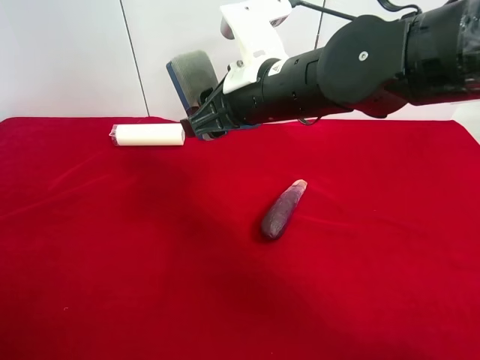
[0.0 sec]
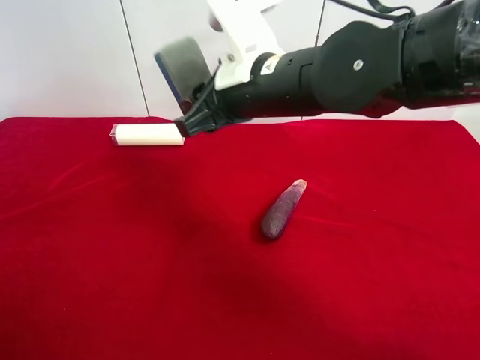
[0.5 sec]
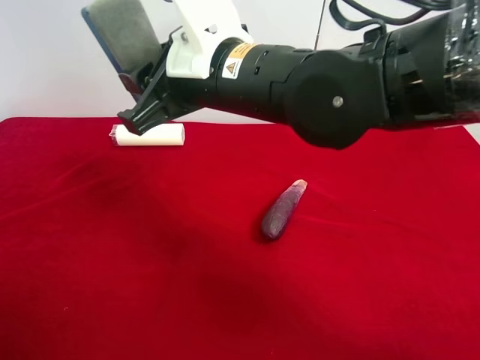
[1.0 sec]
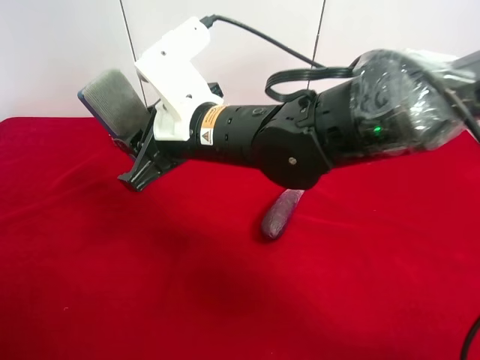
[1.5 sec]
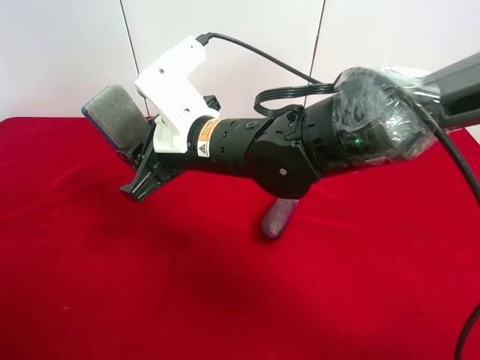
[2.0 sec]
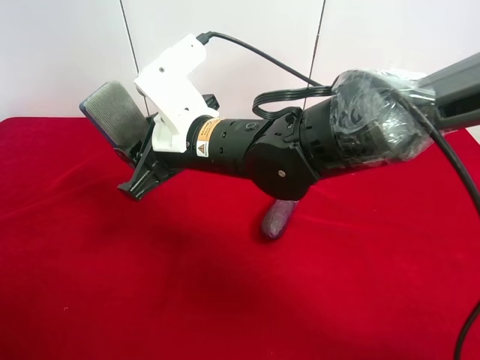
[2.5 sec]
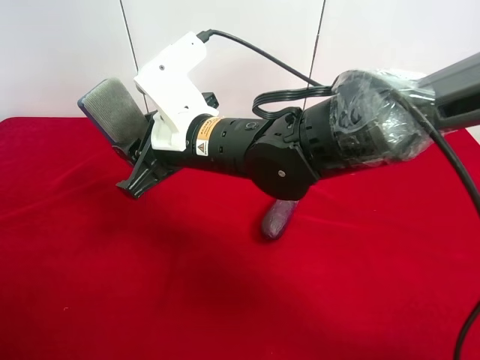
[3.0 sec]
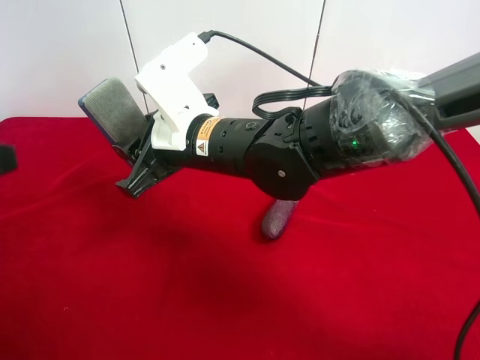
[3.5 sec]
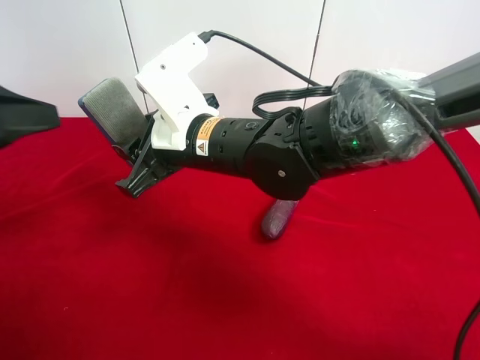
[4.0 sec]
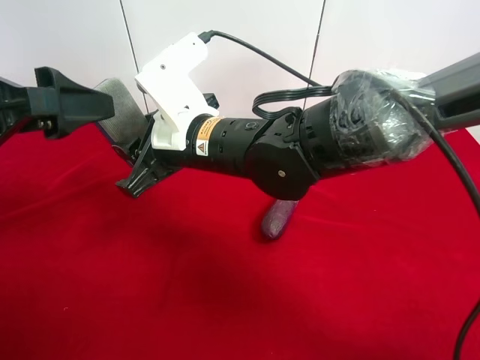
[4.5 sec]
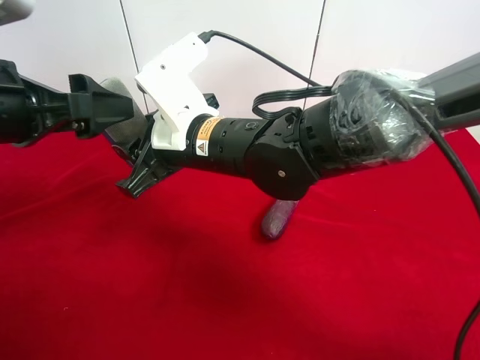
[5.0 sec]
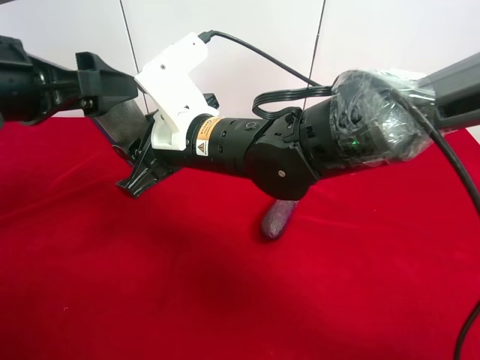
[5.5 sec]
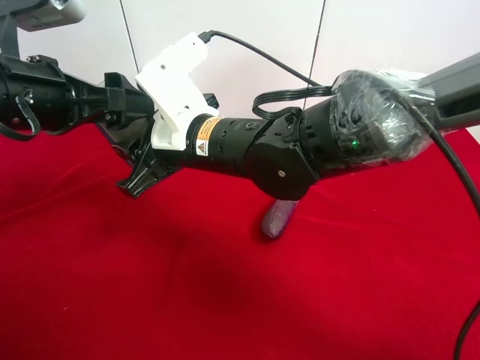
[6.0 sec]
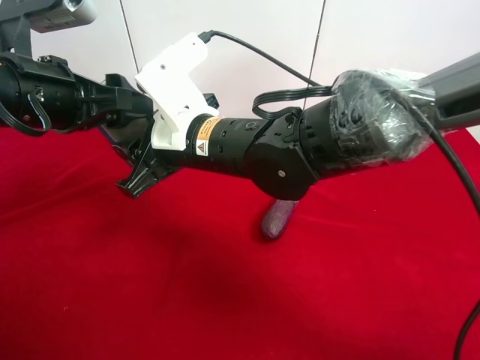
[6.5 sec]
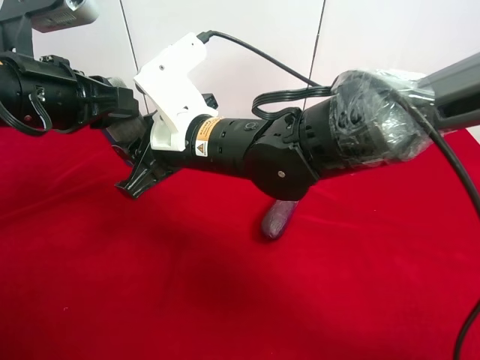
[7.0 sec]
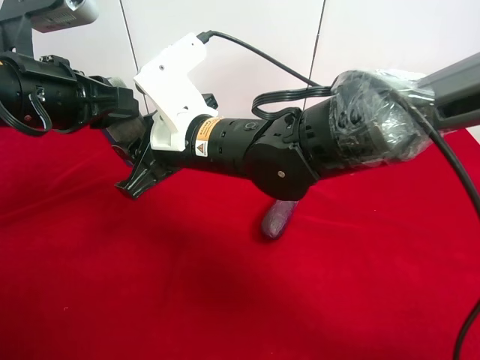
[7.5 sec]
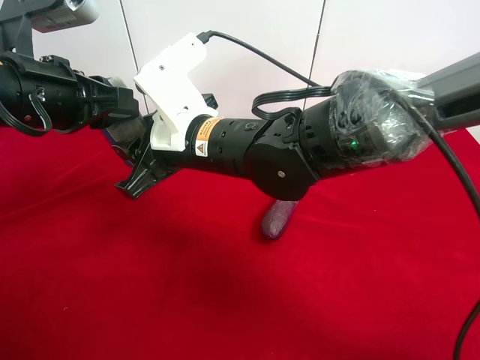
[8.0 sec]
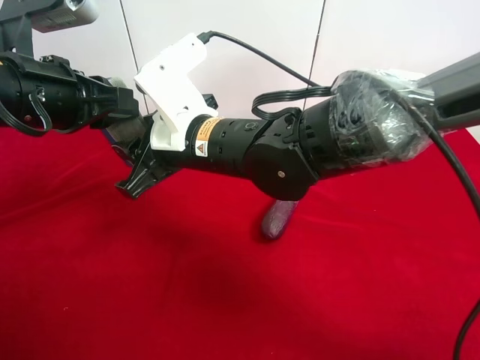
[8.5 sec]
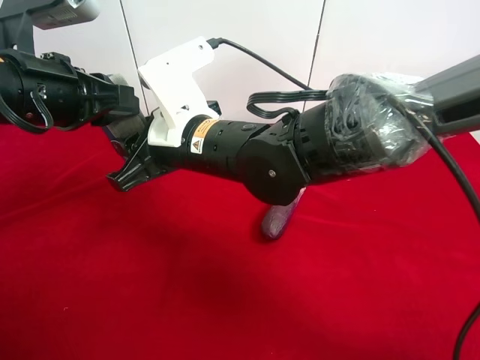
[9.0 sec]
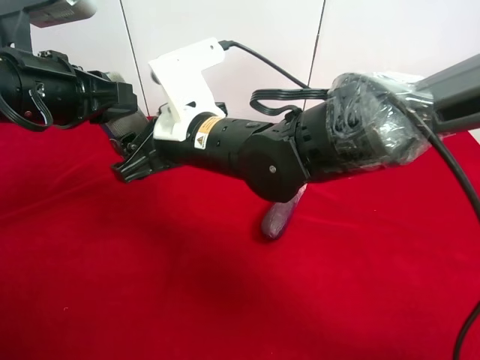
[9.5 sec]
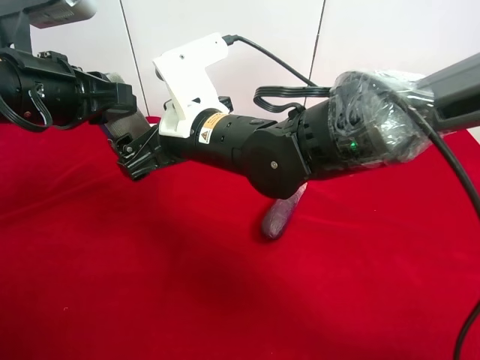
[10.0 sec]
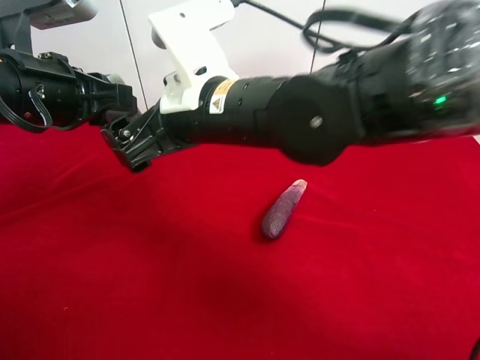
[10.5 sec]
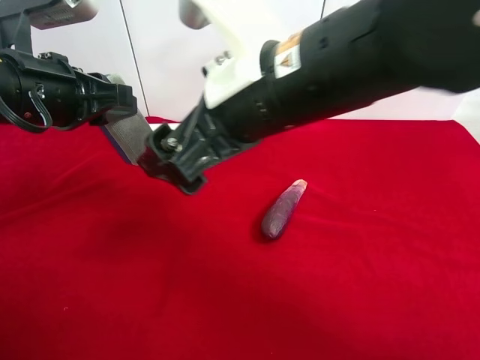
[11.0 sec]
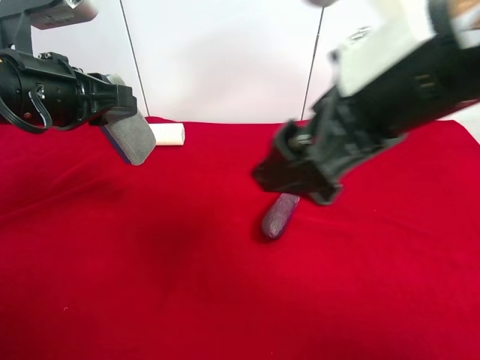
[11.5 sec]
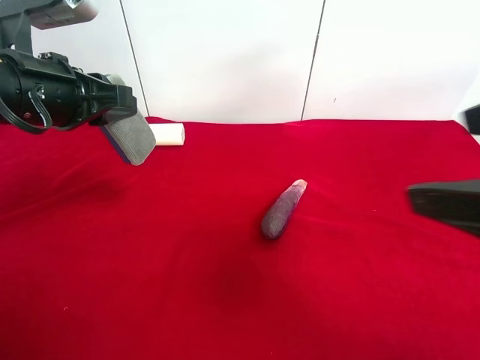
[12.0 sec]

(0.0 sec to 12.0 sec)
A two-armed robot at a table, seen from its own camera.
Task of the whole recording: use the right gripper to pick up the item and transfer it from the right gripper to the left gripper.
Step, 0.0 sec - 10.0 sec: Pass the blue blackboard erasure to the left gripper.
0.0 sec - 2.0 sec: The right gripper shifts roughly 5 cm to the left.
2.0 sec - 4.0 sec: The left gripper goes roughly 15 cm forward.
4.0 sec - 6.0 sec: The left gripper heads forward and to the right, covering roughly 10 cm.
6.0 sec - 8.0 sec: The left gripper closes.
8.0 sec - 10.0 sec: The right gripper opens.
10.0 sec - 12.0 sec: The right gripper shifts approximately 35 cm to the right, backward and upward.

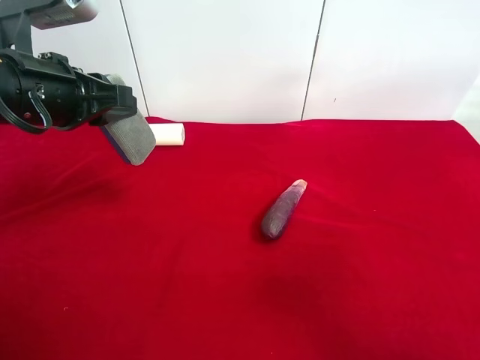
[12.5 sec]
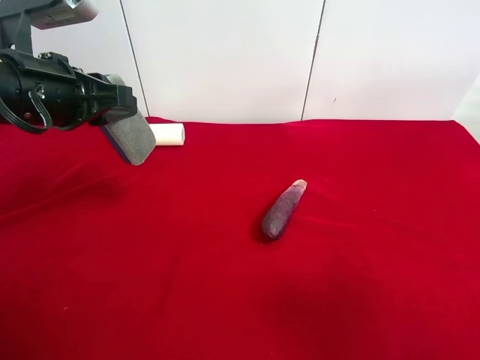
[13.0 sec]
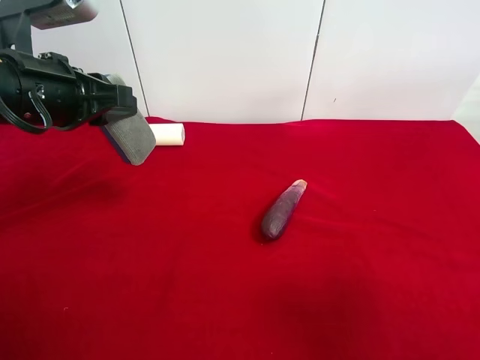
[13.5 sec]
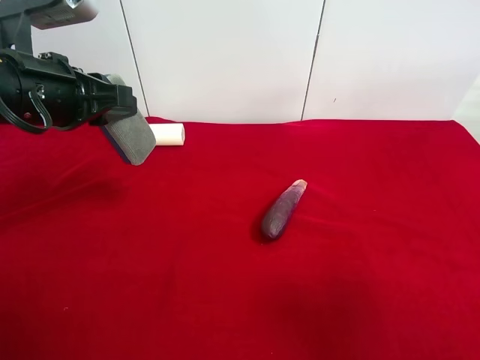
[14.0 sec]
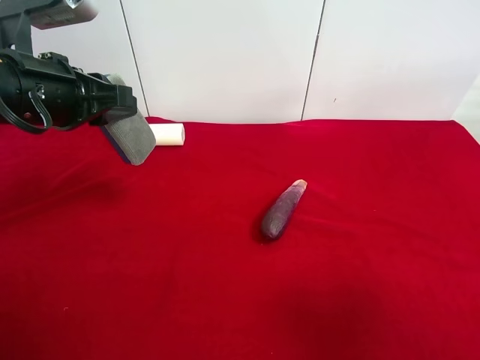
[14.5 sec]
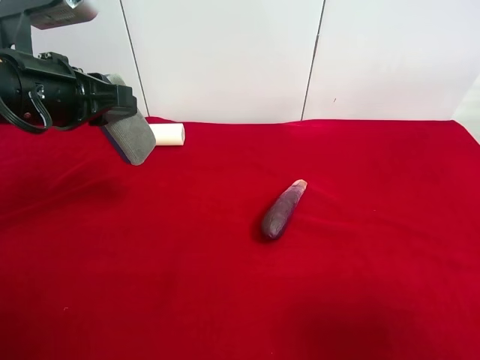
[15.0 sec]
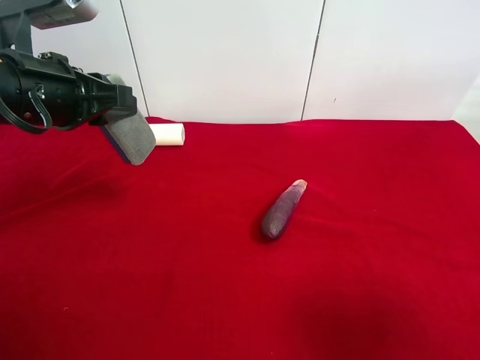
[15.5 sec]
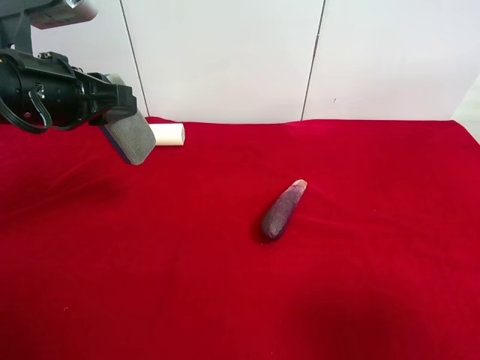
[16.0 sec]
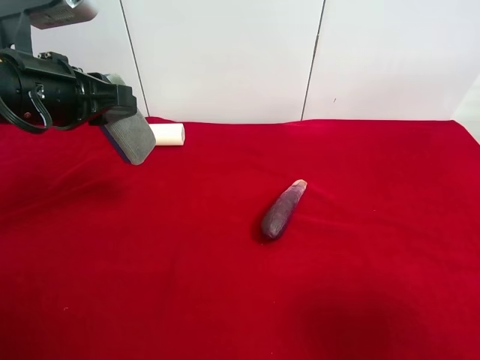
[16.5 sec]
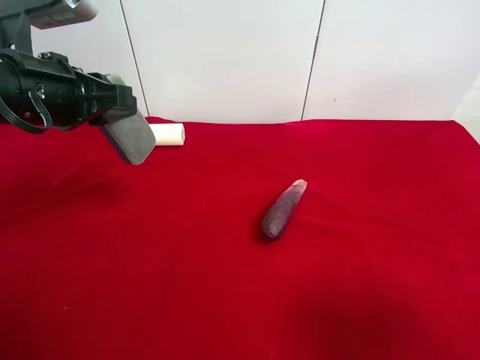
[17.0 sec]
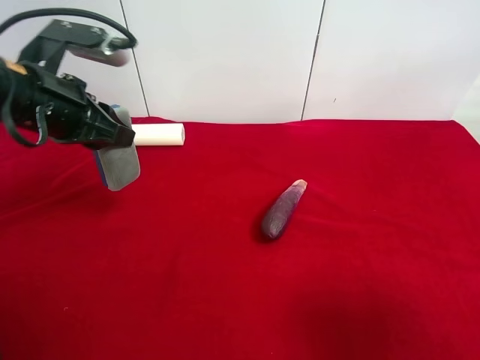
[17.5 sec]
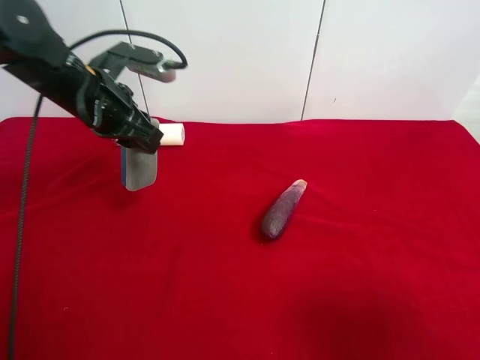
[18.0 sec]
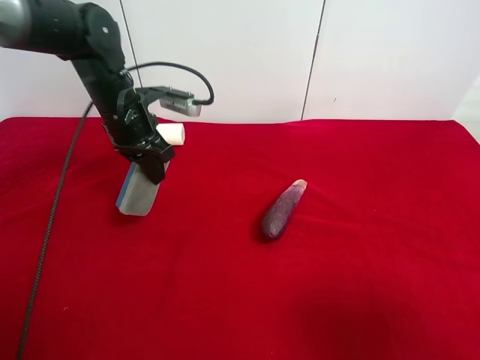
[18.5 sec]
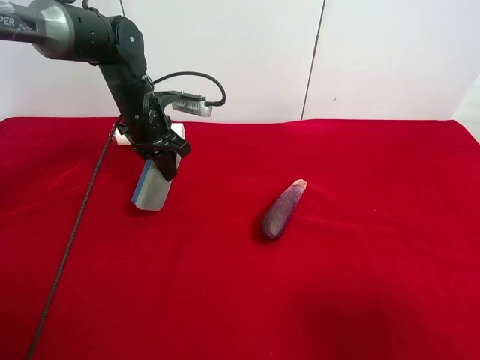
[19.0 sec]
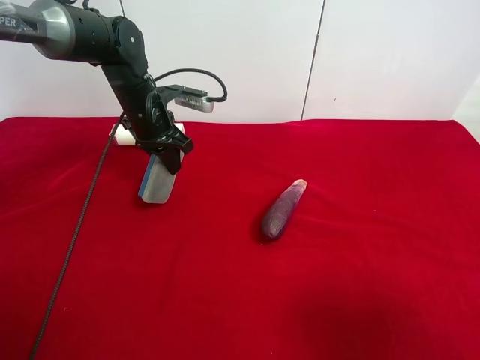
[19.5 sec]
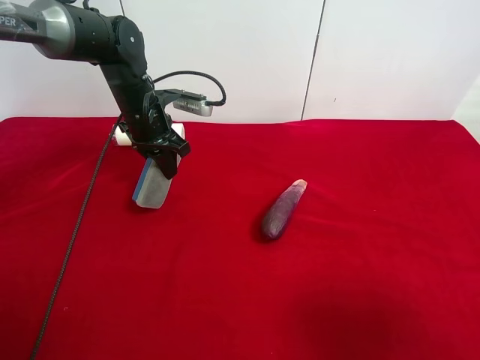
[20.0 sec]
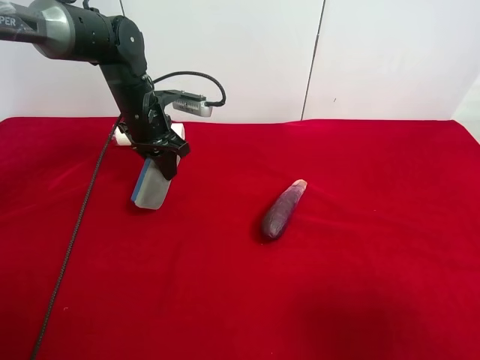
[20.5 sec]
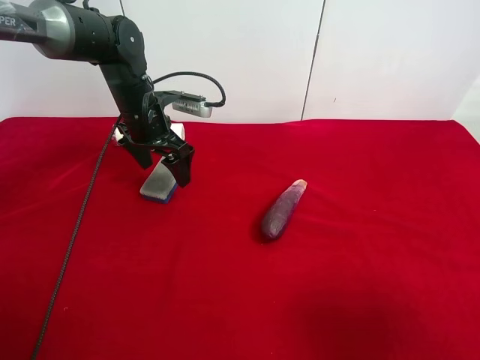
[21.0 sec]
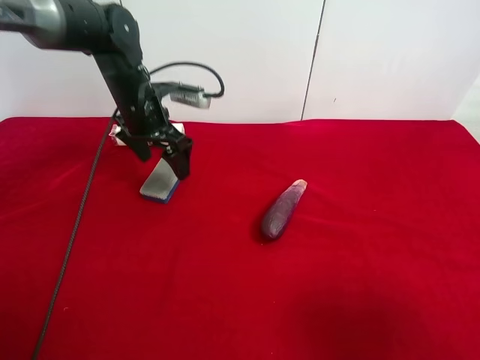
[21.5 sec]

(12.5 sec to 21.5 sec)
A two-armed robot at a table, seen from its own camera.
Task of the whole recording: use the right gripper to pick up the item and transfer it from the right gripper to the left gripper.
Step, 12.5 sec - 21.0 sec: The left gripper places blue blackboard erasure on the left side of the table.
17.0 sec - 19.5 sec: The left gripper heads forward and downward, covering approximately 20 cm.
19.5 sec - 21.5 sec: The left gripper opens up.

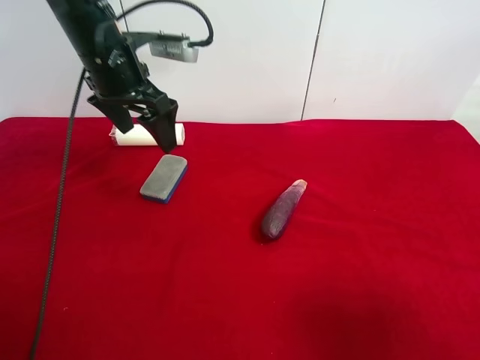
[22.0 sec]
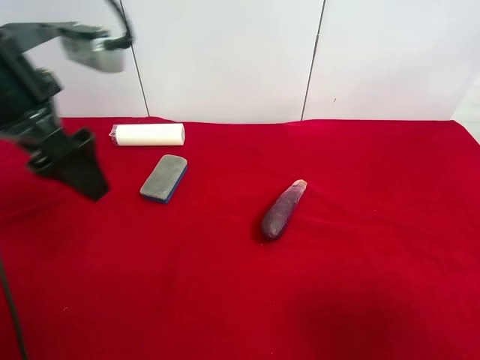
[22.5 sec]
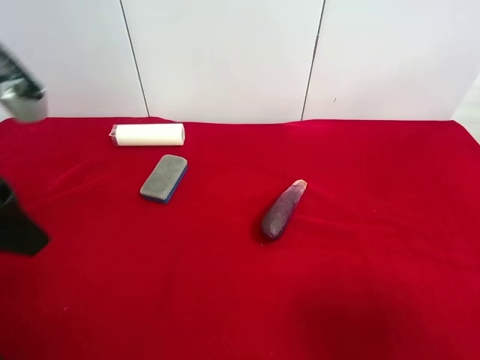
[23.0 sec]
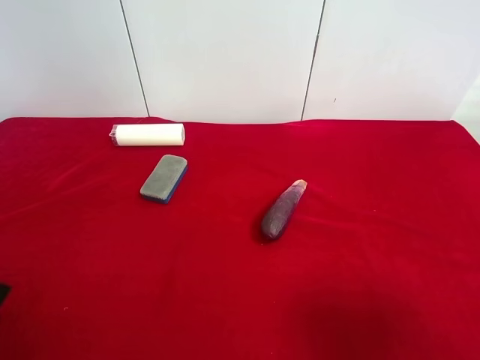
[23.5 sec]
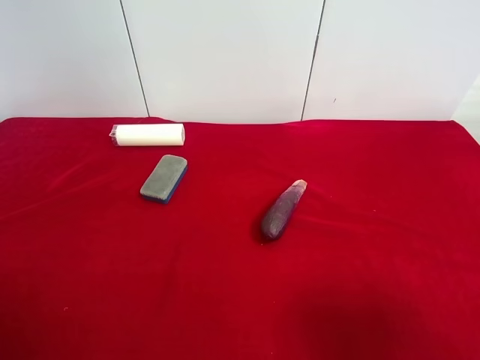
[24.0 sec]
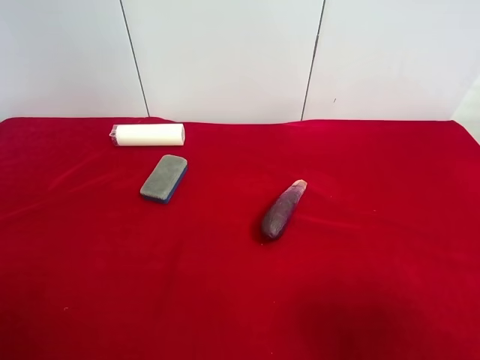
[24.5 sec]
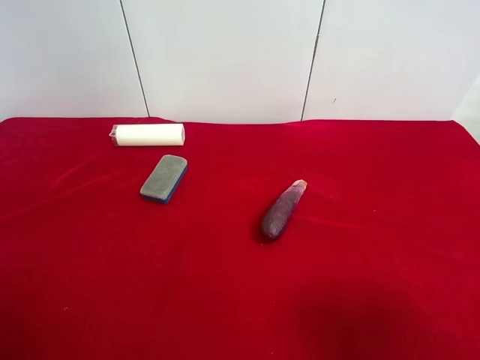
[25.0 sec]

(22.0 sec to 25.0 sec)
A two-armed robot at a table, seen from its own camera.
Task of the whole recording: use the right gripper to pick up the item and transfer it from the right gripper to the left gripper.
22.0 sec - 23.5 sec: The left gripper is displaced backward and to the left by about 30 cm.
